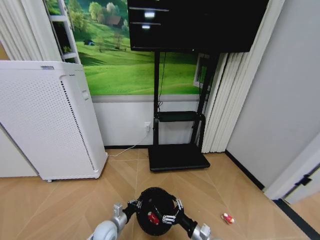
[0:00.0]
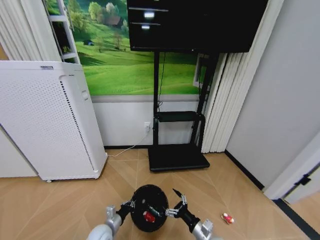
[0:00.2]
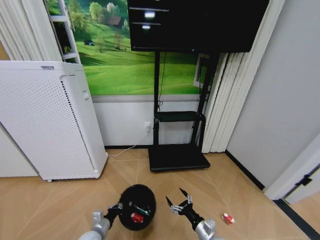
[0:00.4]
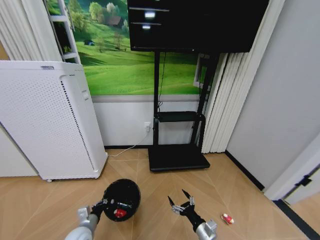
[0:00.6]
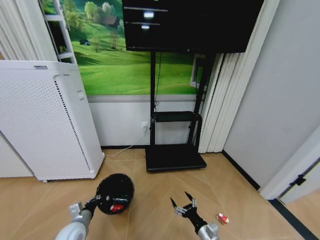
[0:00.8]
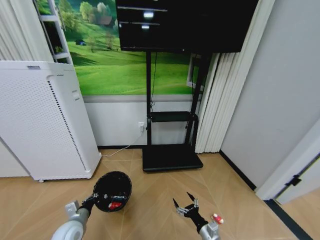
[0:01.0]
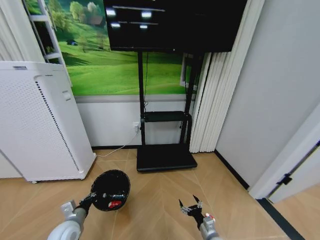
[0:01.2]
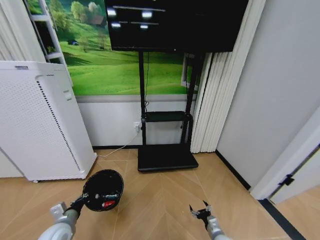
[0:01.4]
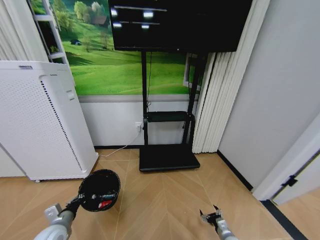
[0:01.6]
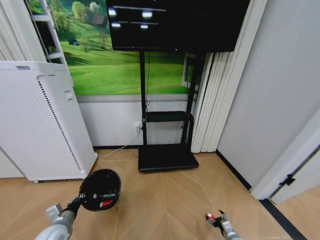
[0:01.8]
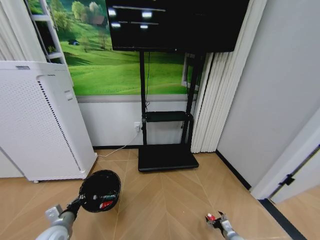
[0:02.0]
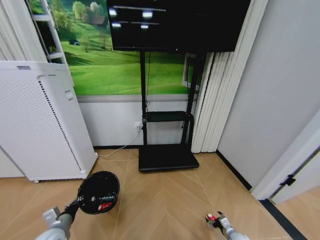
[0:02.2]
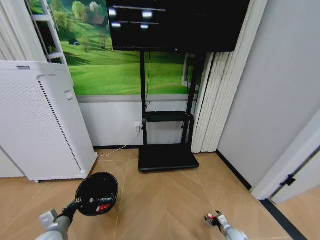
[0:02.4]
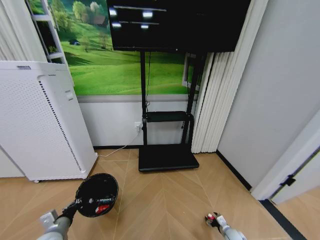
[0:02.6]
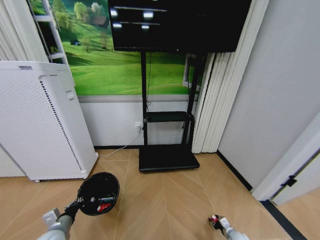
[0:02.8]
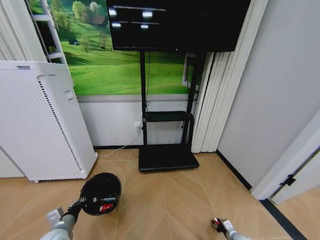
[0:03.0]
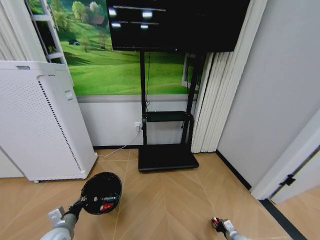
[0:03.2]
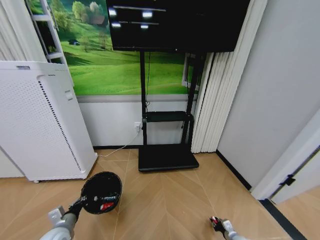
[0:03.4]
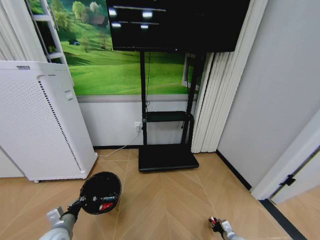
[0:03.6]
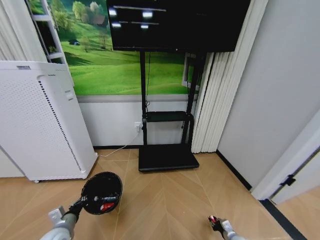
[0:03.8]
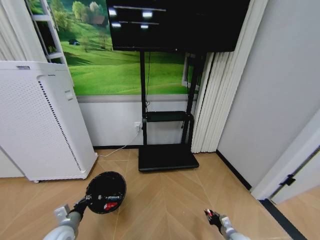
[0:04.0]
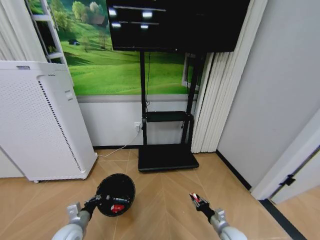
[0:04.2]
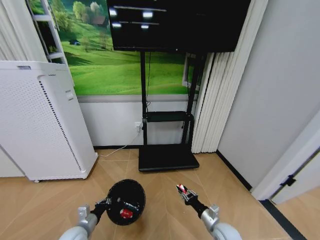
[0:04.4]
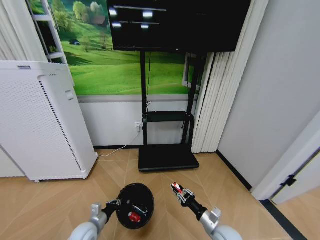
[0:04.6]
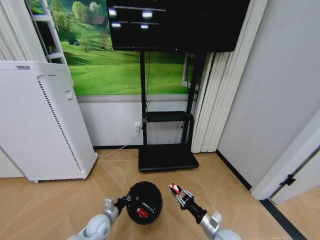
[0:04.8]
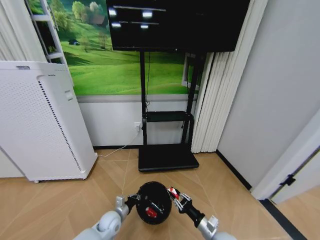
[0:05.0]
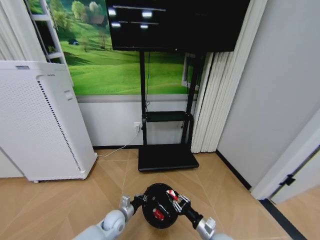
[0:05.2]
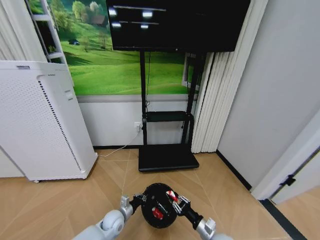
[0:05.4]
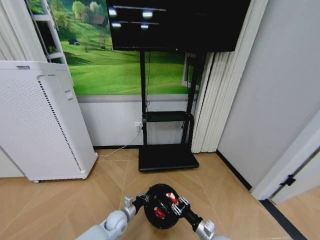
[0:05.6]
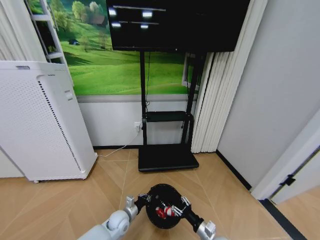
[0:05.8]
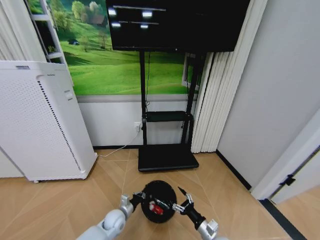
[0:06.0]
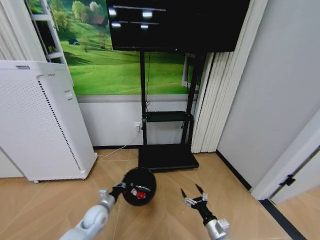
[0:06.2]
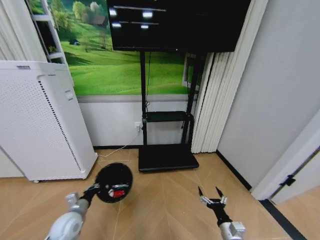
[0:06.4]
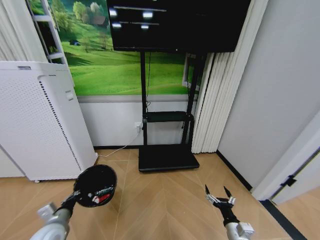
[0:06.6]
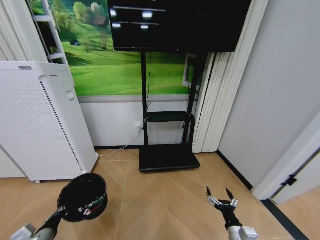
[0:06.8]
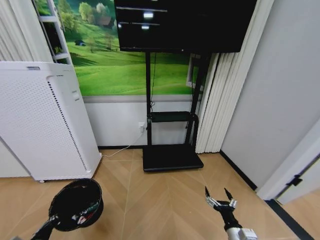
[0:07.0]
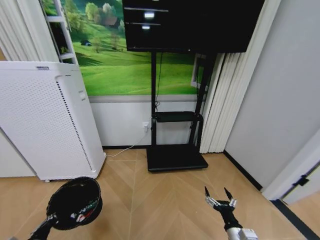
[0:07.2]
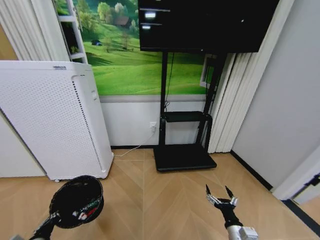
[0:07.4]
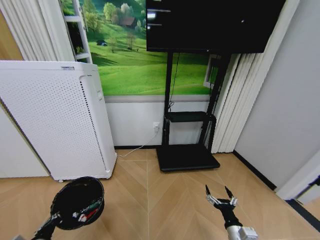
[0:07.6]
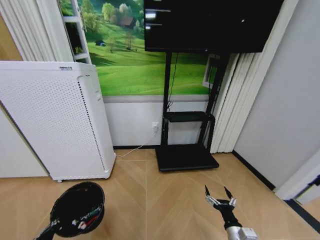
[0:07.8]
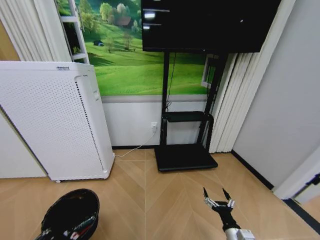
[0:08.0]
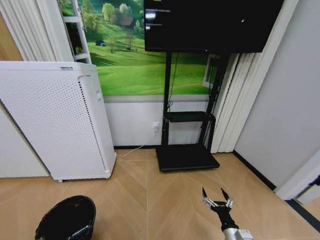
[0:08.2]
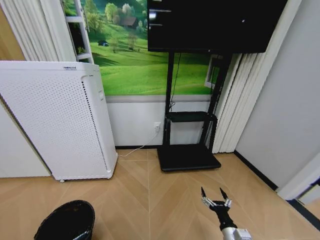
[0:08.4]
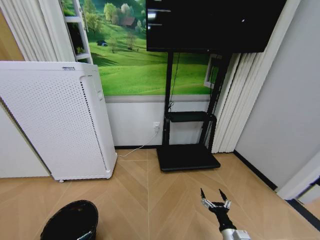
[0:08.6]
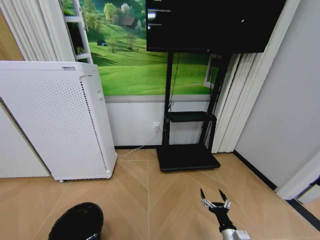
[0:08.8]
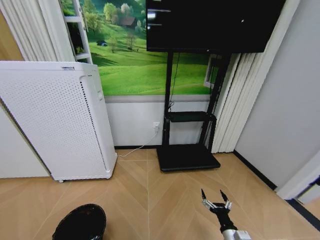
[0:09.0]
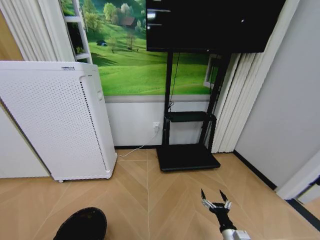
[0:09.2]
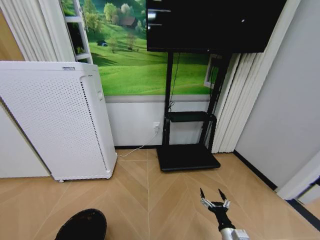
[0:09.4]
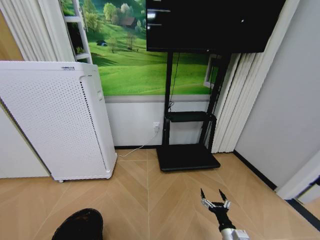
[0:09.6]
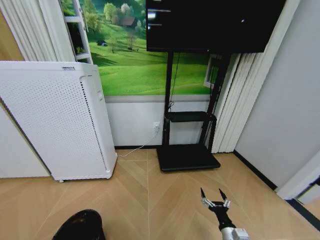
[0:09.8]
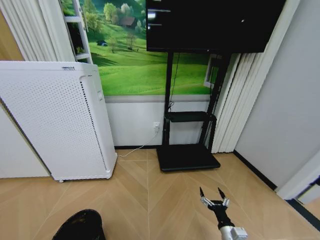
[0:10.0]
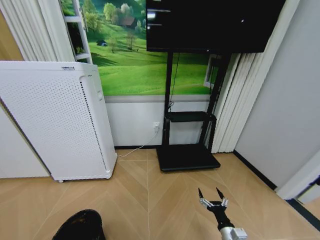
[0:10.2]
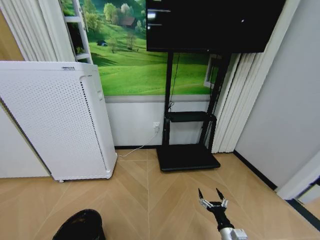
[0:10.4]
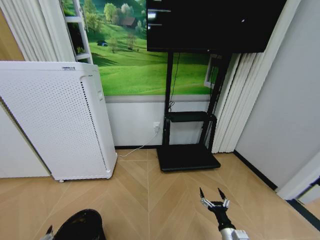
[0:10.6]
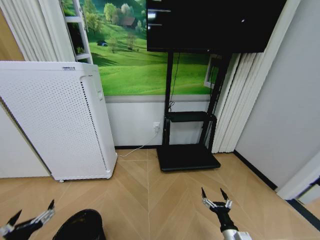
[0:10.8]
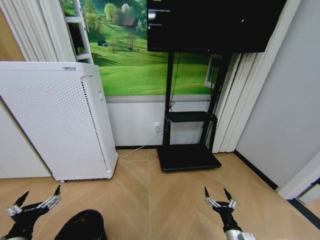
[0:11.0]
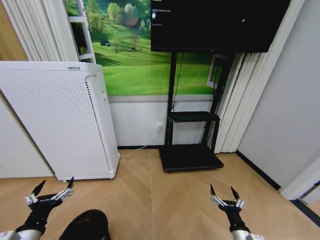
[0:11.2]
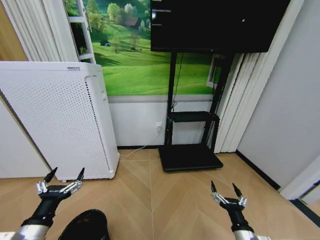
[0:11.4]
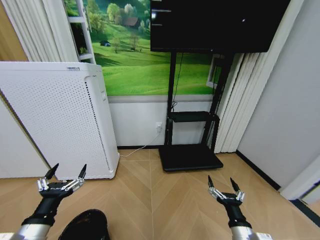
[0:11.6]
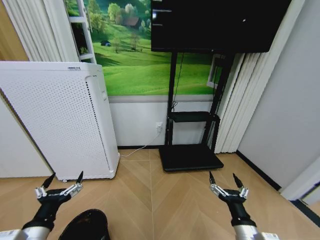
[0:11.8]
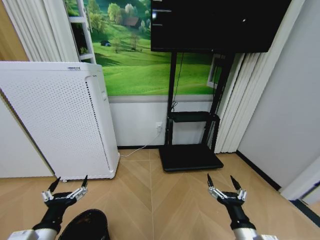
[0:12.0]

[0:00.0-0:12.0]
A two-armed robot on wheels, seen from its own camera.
Task of the whole recording: Pick up the trash bin and place the garbage on the floor into it.
0:00.0 to 0:01.6: The left gripper travels to the left and upward by some 20 cm. The right gripper is displaced downward and to the right by about 15 cm.
0:01.6 to 0:03.0: The right gripper moves to the right and downward, about 10 cm, and closes up.
0:03.0 to 0:04.4: The left gripper shifts approximately 5 cm to the right; the right gripper shifts some 20 cm upward and to the left.
0:04.4 to 0:06.0: The right gripper shifts by about 5 cm, and opens its fingers, while the left gripper is displaced to the right, forward and downward by some 15 cm.
0:06.0 to 0:07.6: The left gripper heads backward, to the left and upward, covering some 30 cm. The right gripper ends up roughly 10 cm from where it was.
0:07.6 to 0:09.0: The left gripper travels downward by roughly 5 cm.
0:09.0 to 0:10.4: The left gripper shifts by approximately 5 cm, and opens.
0:10.4 to 0:12.0: The left gripper heads upward, forward and to the right, covering approximately 15 cm; the right gripper shifts approximately 15 cm upward.

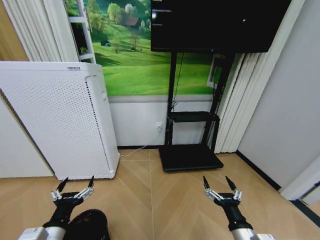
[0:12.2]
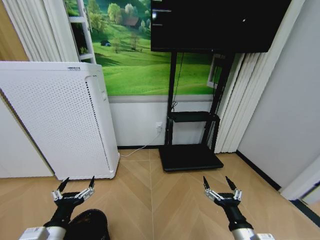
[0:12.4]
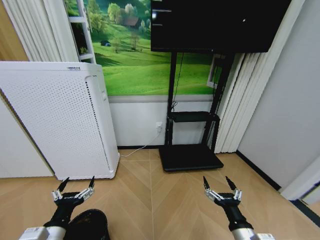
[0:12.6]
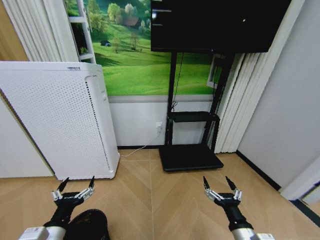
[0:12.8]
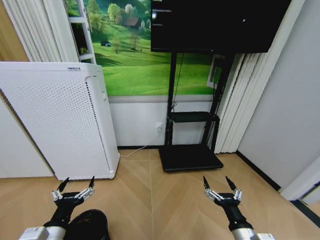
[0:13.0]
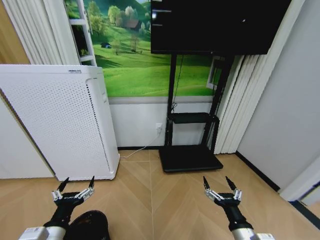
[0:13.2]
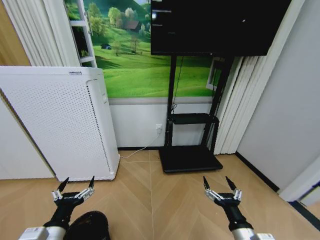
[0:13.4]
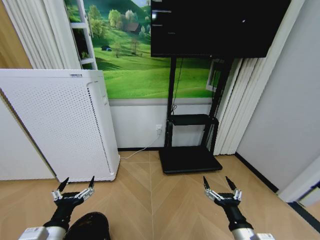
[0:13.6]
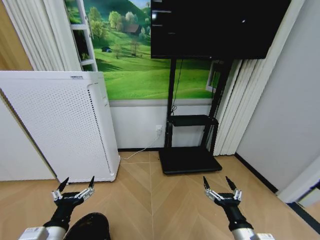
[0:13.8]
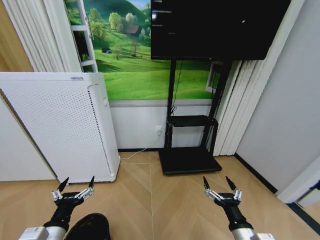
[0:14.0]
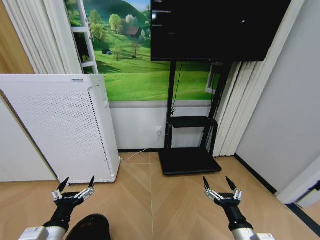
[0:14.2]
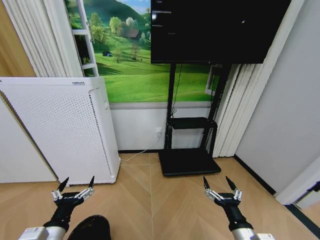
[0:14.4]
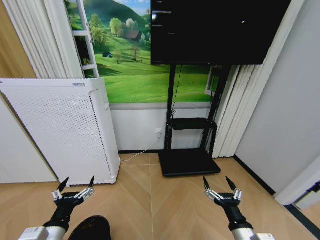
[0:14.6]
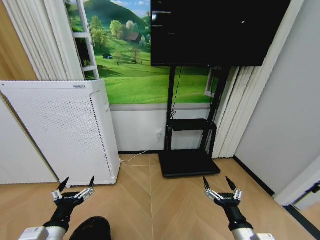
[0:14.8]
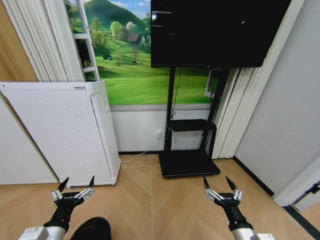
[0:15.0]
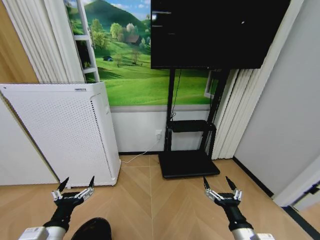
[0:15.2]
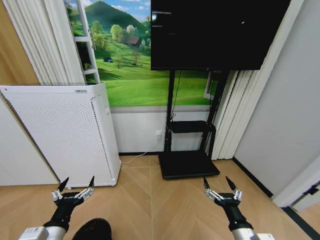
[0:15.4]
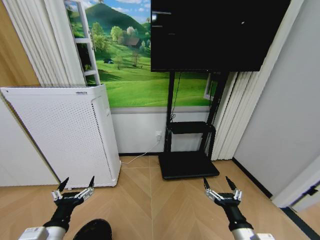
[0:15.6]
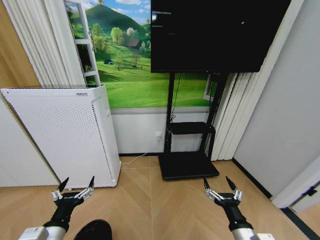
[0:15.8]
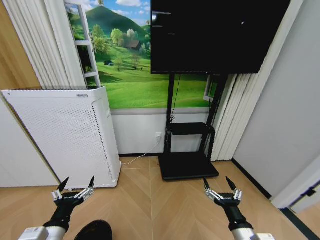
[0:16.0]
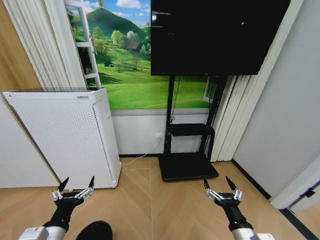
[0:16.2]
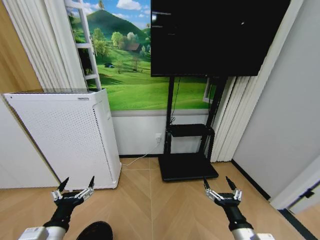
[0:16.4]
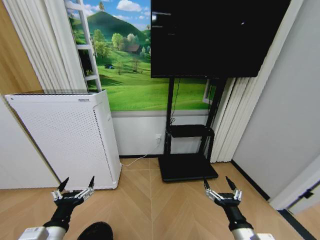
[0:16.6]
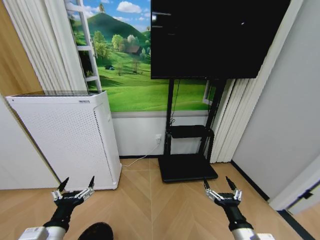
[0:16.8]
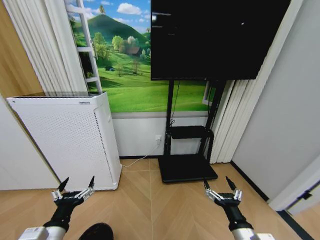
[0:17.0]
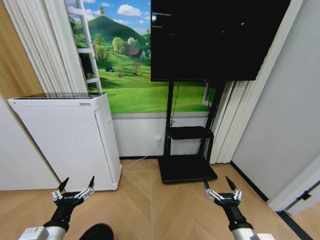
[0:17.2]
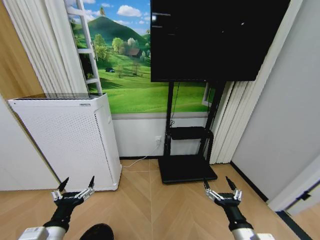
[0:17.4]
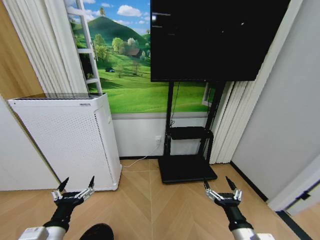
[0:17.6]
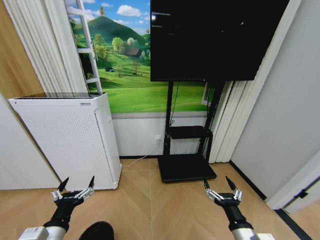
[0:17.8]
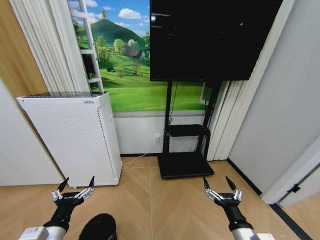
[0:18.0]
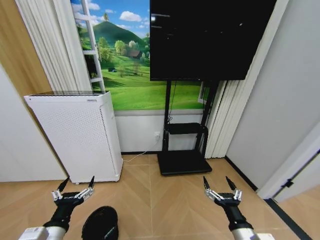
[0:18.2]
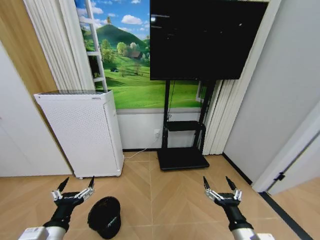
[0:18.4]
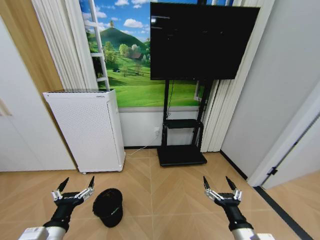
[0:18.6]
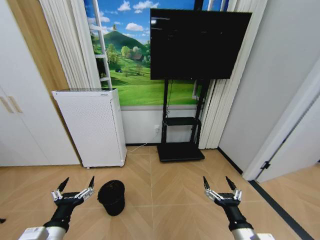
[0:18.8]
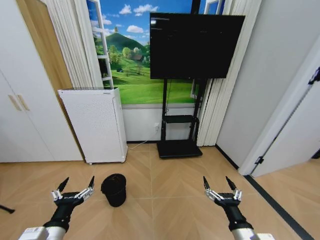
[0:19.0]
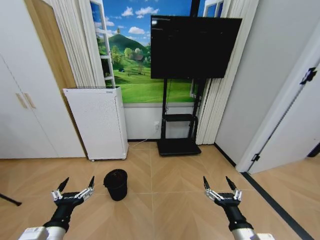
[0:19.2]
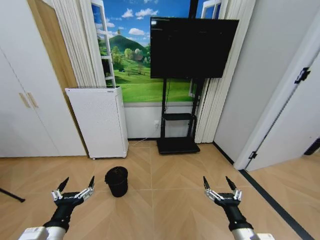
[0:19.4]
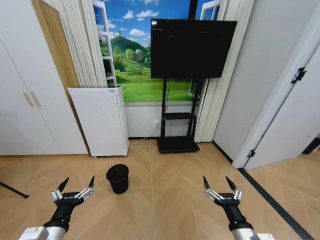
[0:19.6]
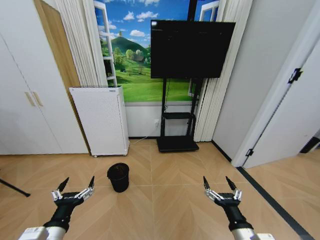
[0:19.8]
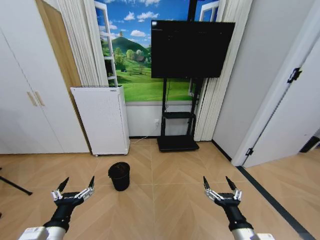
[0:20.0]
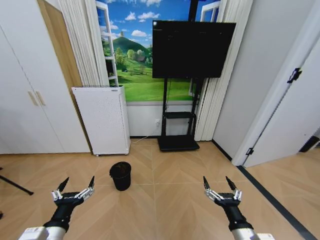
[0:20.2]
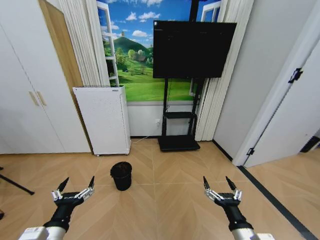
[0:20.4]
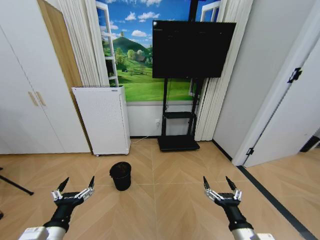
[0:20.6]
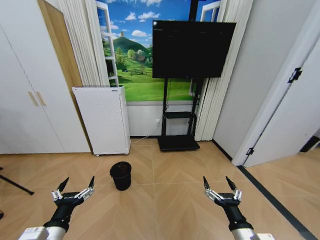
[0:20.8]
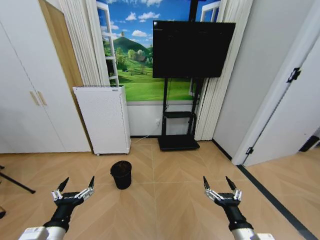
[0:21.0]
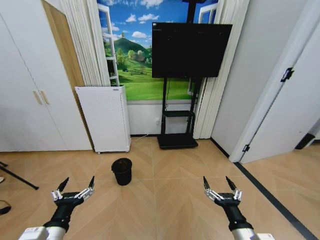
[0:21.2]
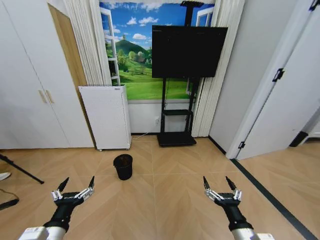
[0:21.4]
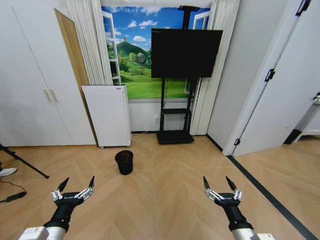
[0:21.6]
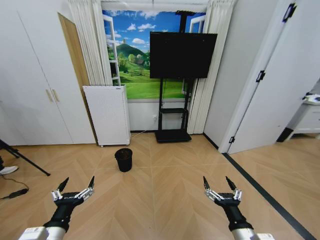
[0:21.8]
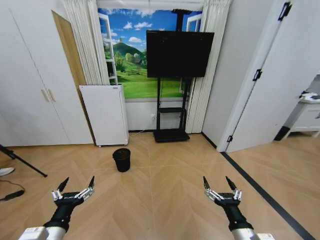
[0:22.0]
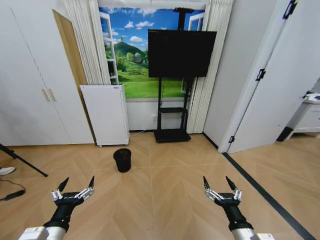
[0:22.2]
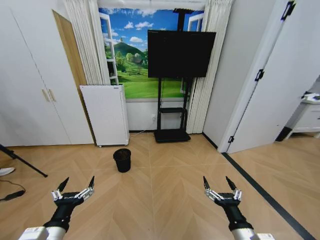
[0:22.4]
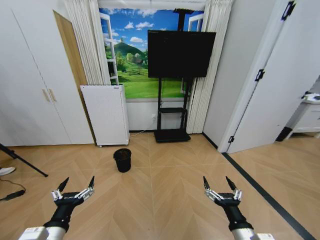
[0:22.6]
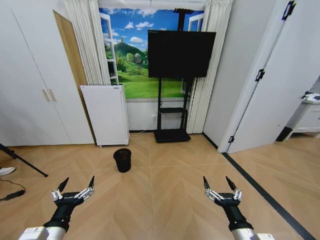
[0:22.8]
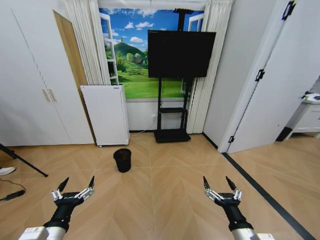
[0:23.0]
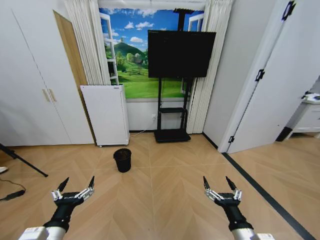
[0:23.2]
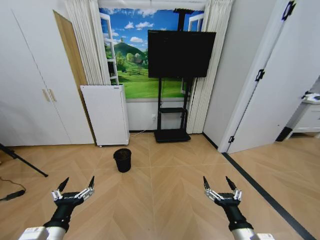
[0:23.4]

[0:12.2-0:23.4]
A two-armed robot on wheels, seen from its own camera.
Task of the whole recording: Pick up the trash bin and place the garbage on the floor into it.
0:12.2 to 0:17.0: The two grippers keep their place.
0:21.8 to 0:23.4: The two grippers keep their place.
